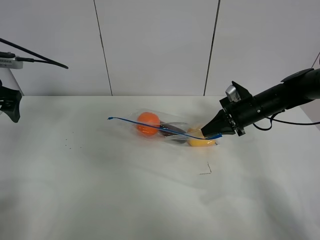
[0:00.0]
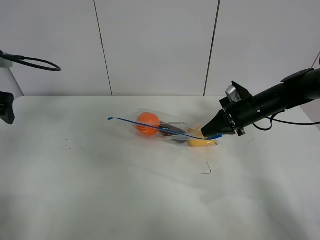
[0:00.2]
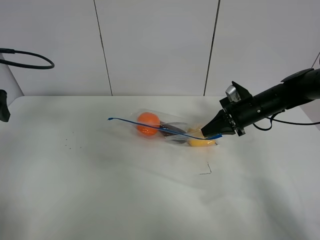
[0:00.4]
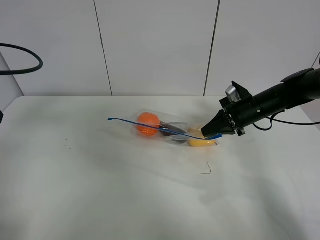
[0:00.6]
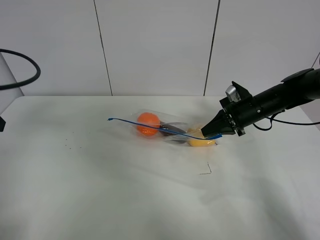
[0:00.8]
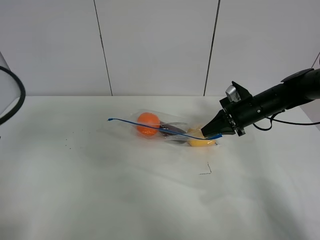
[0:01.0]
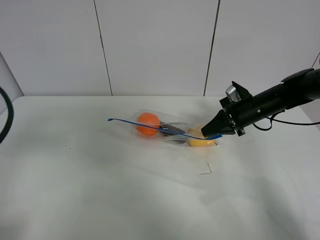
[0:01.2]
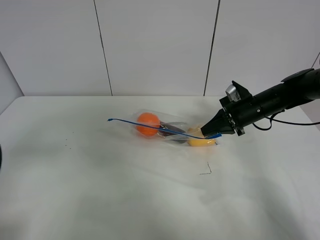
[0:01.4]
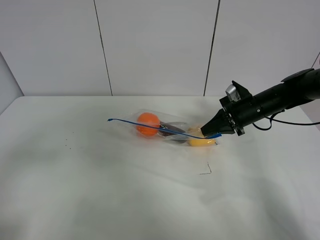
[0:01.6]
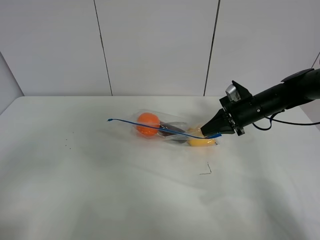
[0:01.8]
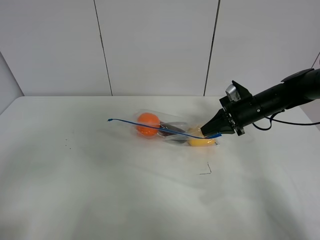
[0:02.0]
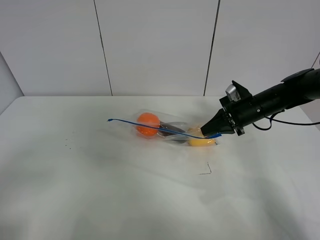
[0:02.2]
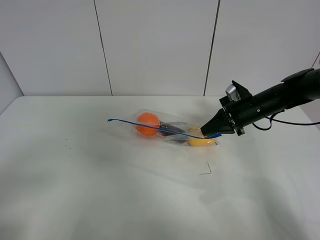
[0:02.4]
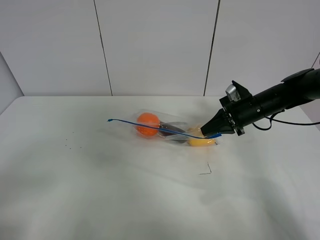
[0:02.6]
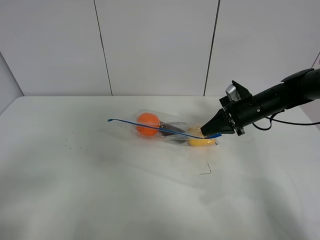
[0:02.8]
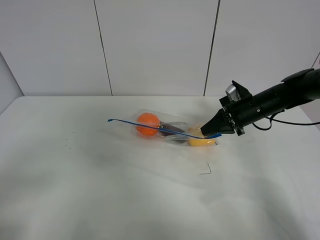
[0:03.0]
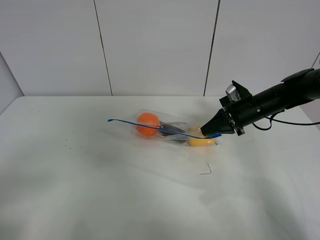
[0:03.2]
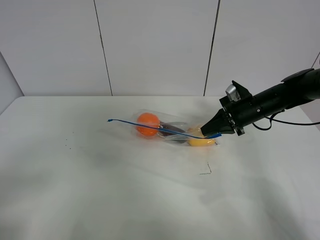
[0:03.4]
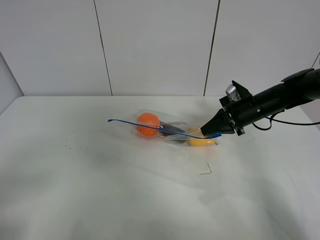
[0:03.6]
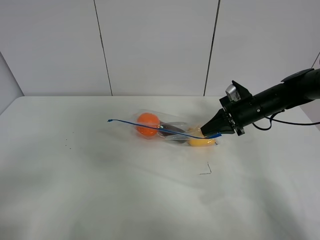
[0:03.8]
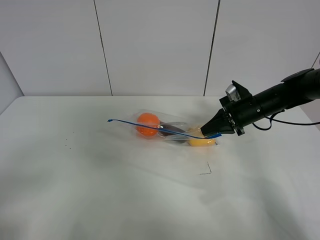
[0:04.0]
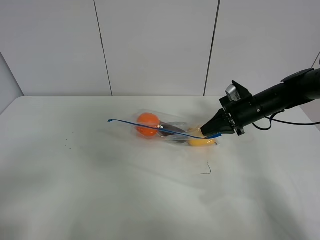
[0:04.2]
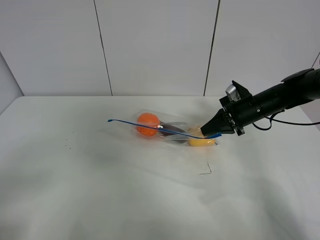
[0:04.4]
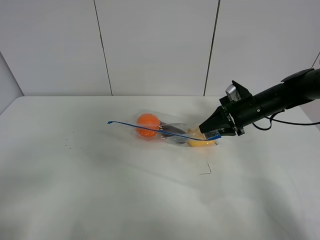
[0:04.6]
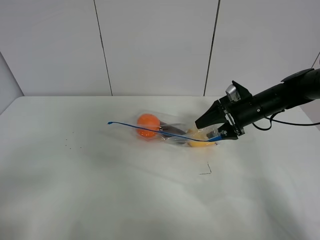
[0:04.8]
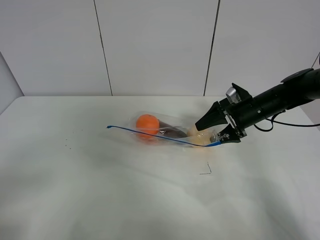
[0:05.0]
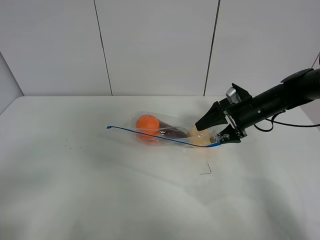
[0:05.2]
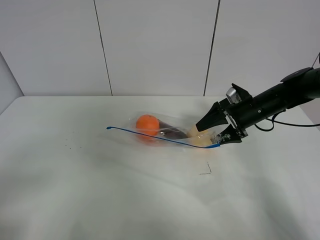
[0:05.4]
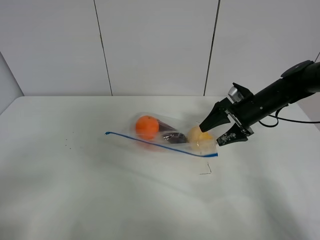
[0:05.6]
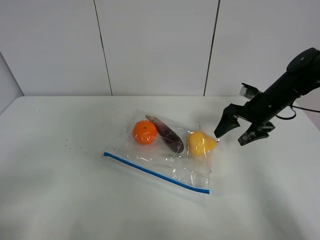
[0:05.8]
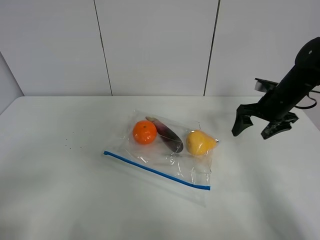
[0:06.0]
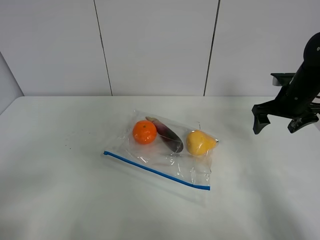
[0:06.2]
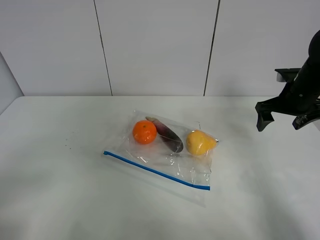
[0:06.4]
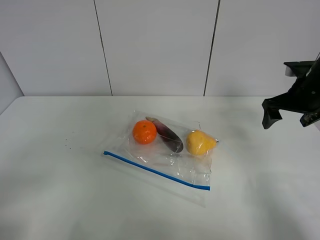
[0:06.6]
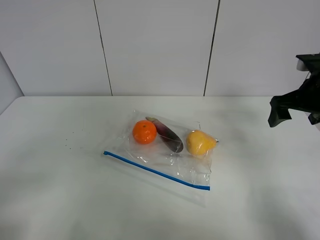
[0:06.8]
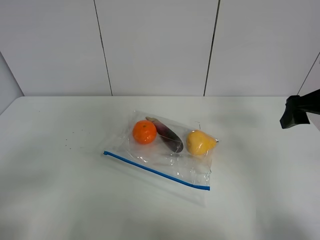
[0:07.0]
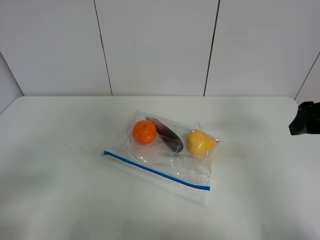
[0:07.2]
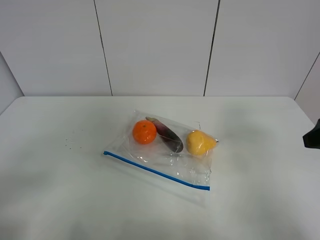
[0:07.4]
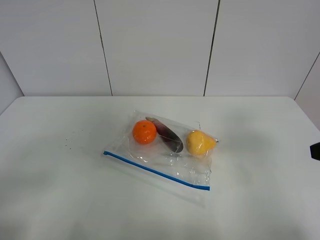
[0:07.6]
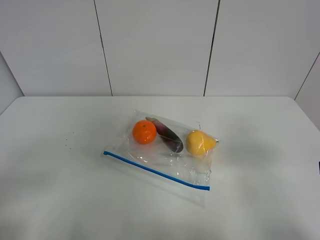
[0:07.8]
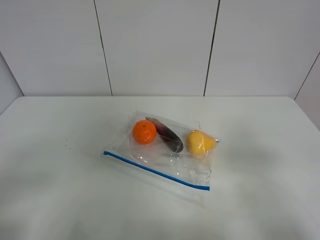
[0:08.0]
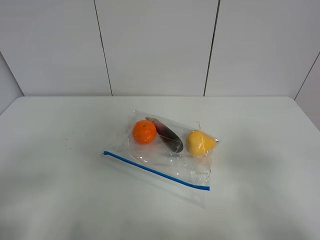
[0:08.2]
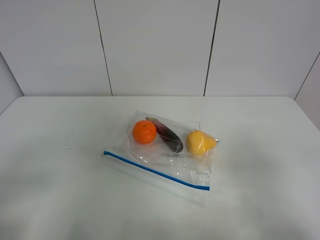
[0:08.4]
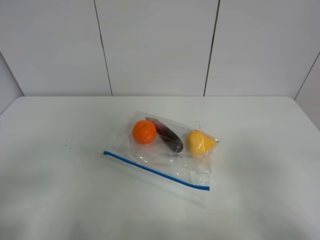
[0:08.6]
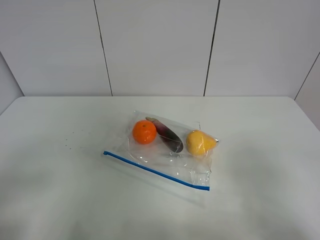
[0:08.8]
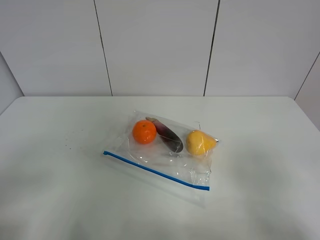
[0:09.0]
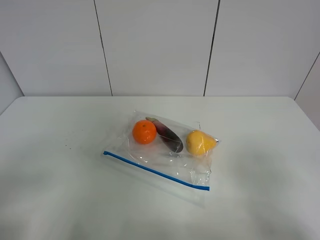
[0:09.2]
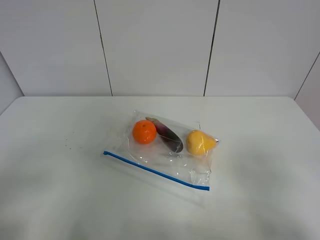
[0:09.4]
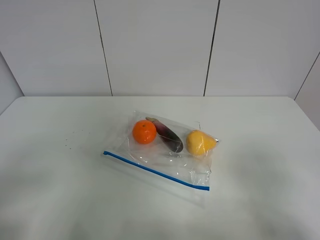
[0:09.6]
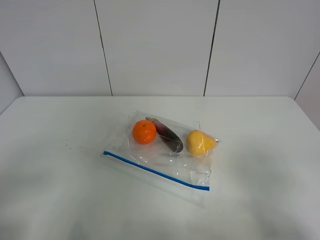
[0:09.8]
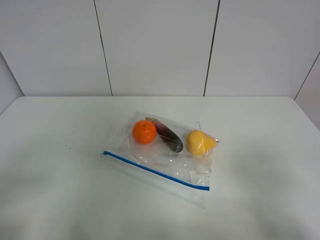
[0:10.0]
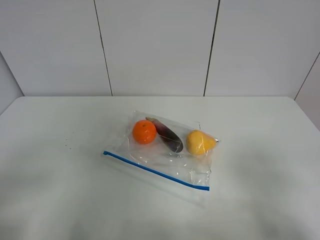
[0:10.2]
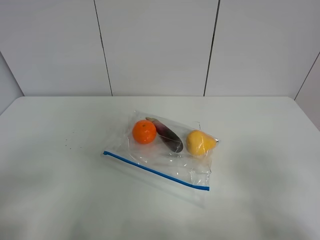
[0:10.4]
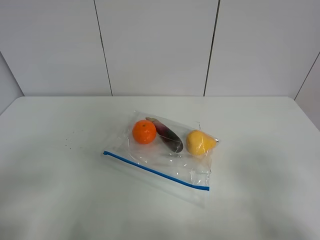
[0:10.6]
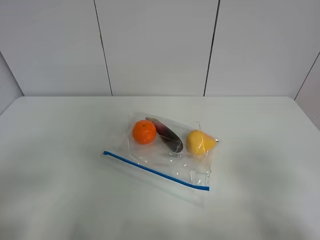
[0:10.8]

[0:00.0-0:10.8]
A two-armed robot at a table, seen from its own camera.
0:00.0 to 0:01.6: The left gripper is displaced backward by roughly 25 cm.
0:03.0 to 0:04.6: The right gripper opens.
0:04.6 to 0:06.2: The right gripper shifts roughly 10 cm to the right and upward, and opens up.
0:06.2 to 0:07.8: The right gripper is displaced backward by approximately 30 cm.
0:09.2 to 0:10.8: Both grippers stay about where they are.

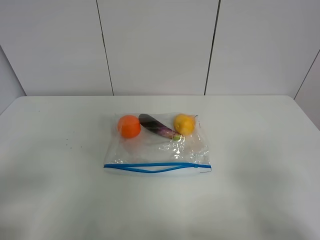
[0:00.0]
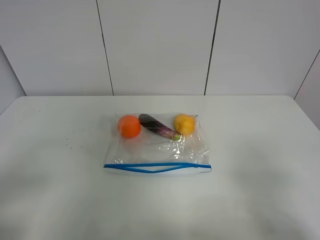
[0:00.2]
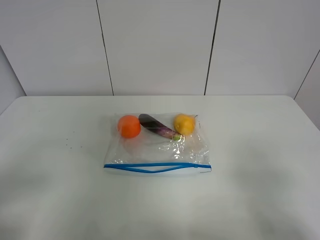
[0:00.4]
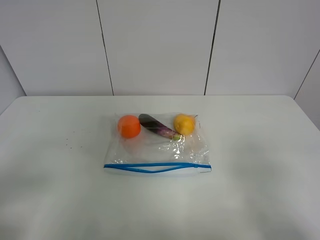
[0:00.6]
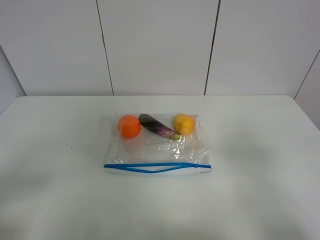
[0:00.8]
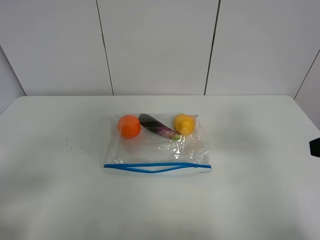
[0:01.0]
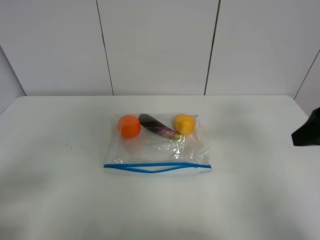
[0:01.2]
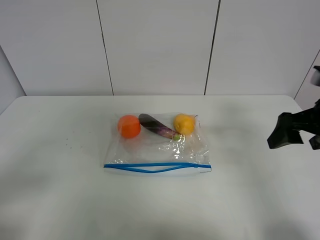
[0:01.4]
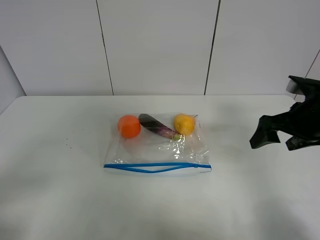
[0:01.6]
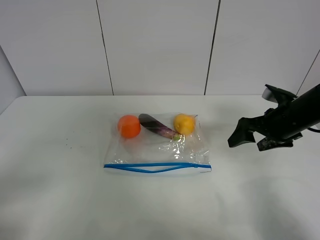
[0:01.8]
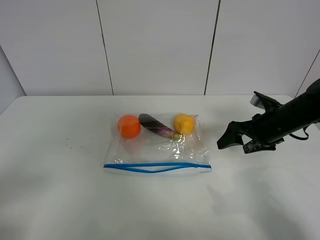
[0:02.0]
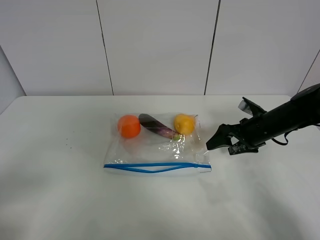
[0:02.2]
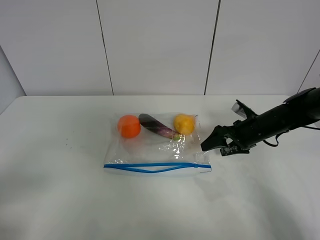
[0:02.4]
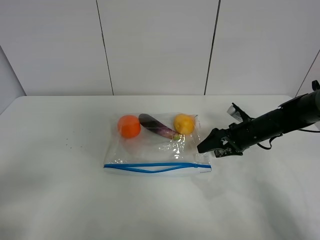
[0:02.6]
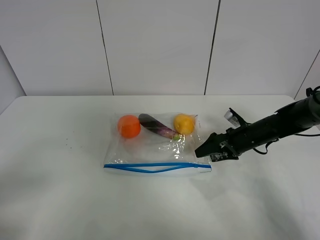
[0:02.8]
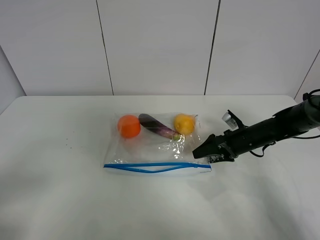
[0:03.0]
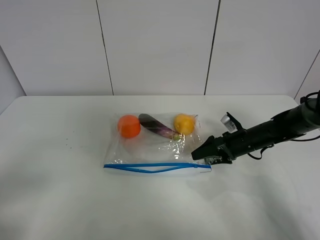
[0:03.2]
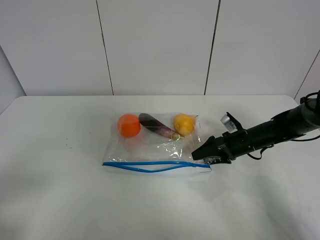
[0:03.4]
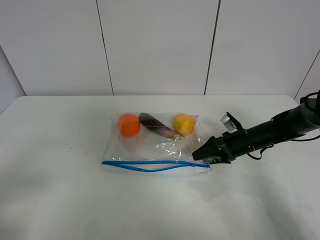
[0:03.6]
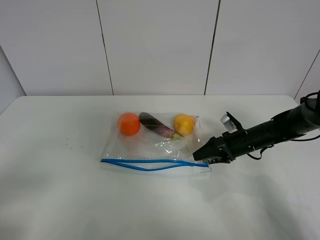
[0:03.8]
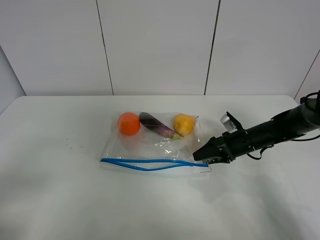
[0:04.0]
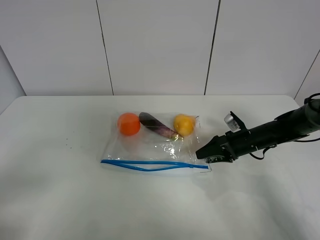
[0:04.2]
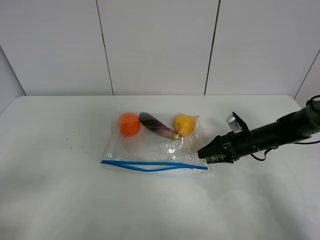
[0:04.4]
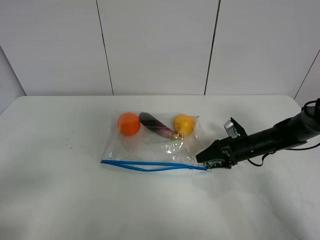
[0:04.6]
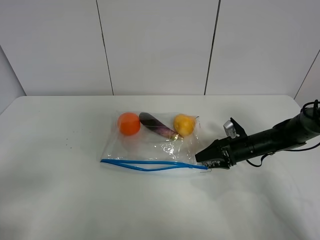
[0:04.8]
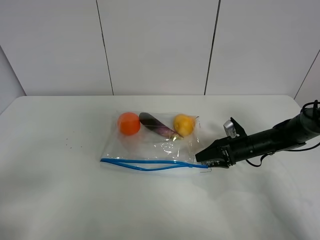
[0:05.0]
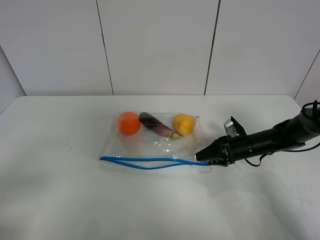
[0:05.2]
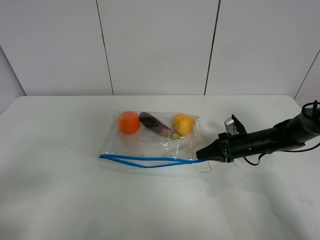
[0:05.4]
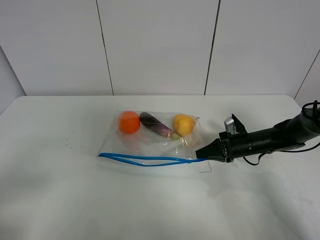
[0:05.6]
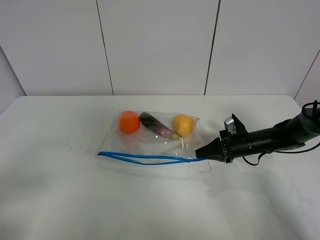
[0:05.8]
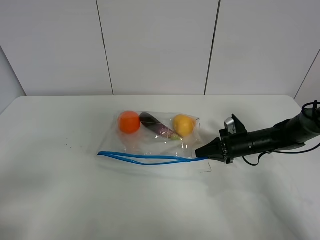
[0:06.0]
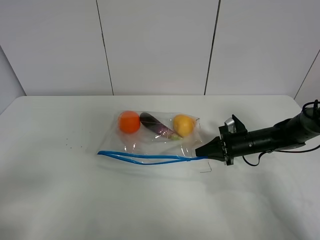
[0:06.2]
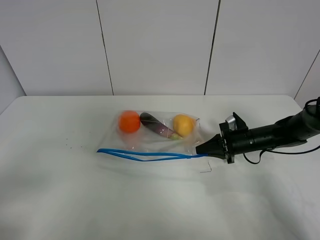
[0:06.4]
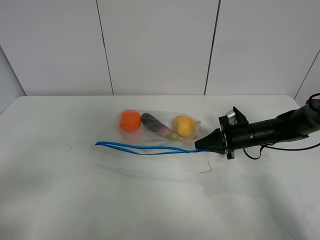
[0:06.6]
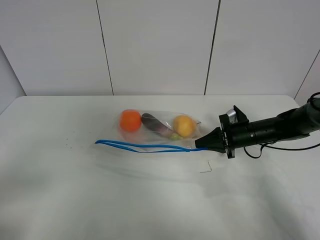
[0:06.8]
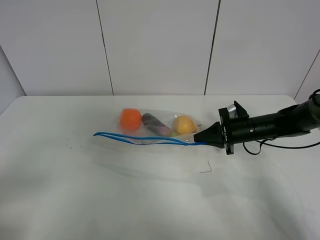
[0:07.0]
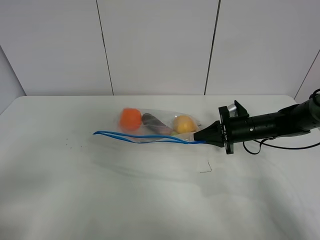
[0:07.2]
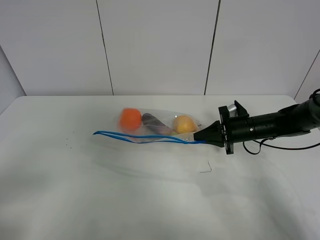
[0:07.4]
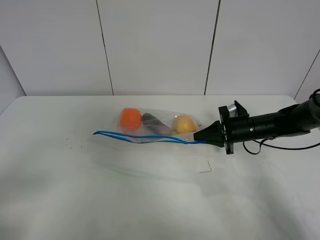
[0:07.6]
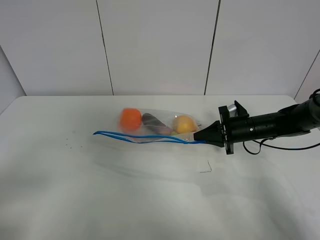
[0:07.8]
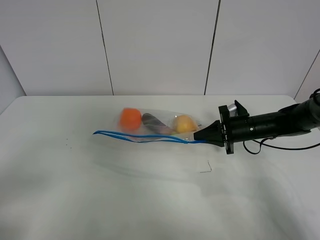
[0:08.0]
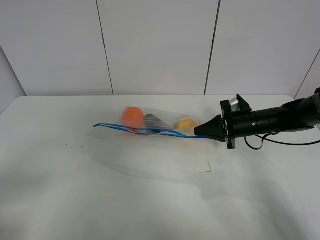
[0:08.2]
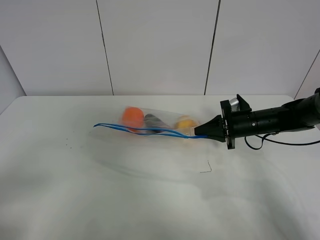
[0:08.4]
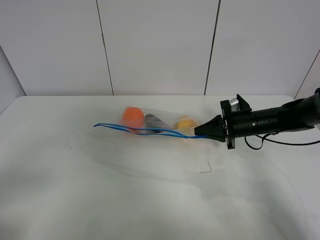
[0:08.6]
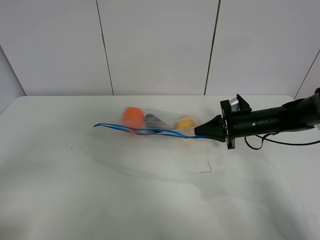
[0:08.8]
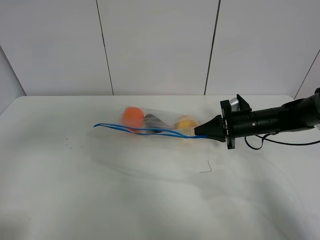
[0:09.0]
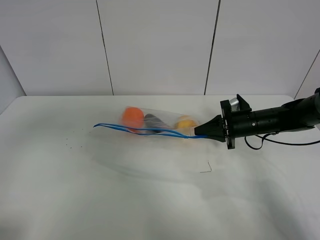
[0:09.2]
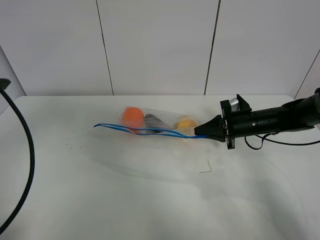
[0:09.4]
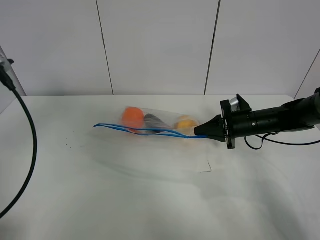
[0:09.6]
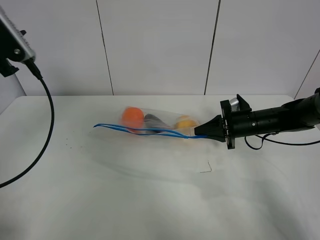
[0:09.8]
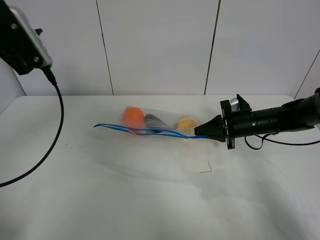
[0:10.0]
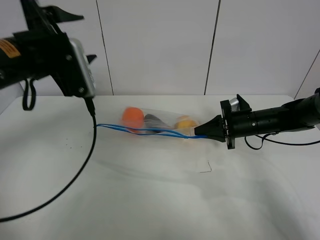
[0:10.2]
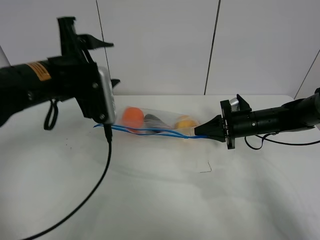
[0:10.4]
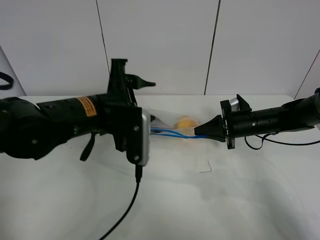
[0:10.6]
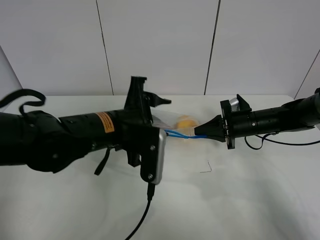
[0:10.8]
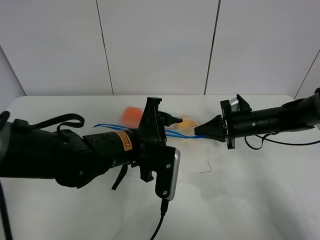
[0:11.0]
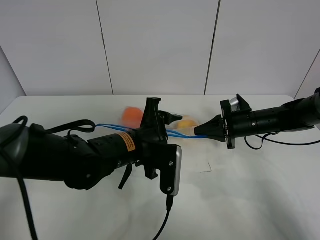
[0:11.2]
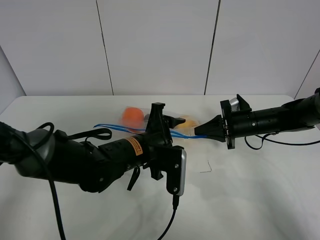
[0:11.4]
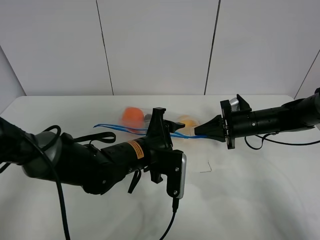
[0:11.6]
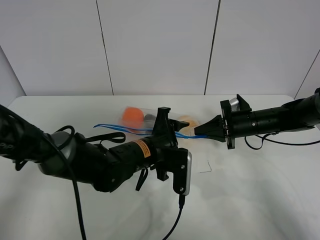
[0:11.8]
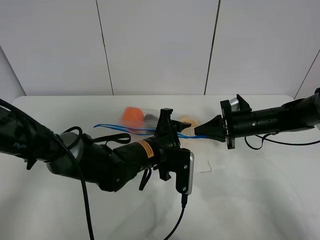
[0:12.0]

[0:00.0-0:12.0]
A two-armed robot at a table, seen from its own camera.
Step, 0:00.0 to 0:05.4: Grasp the fruit bag with right gripper.
Step, 0:05.6 to 0:08.6: Lift the fruit bag with your right gripper.
0:00.0 to 0:01.6: The right gripper moves forward, some 25 cm.
0:01.6 to 0:03.0: The right gripper shifts about 20 cm downward and forward.
0:03.0 to 0:04.4: The grippers make only small movements.
0:04.4 to 0:06.0: The right gripper closes.
0:06.0 to 0:07.6: The grippers stay close to where they were, moving slightly.
0:07.6 to 0:09.0: The left gripper moves forward and upward, some 10 cm.
0:09.0 to 0:10.4: The left gripper is displaced forward and to the right by some 20 cm.
0:10.4 to 0:12.0: The left gripper travels downward and to the right by roughly 20 cm.
